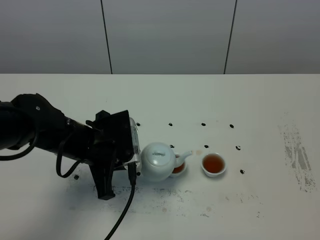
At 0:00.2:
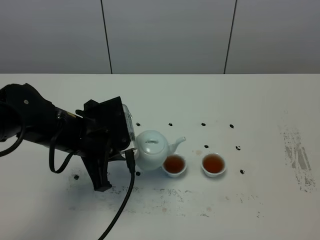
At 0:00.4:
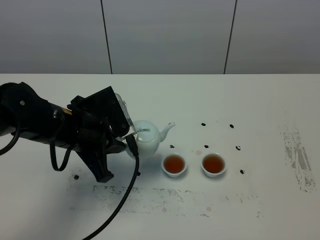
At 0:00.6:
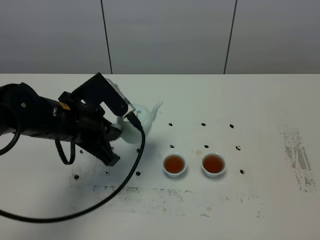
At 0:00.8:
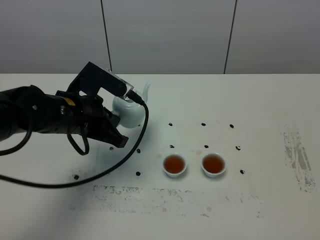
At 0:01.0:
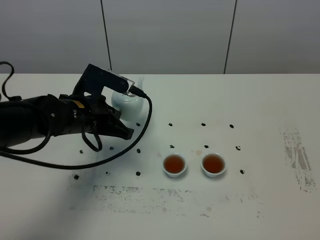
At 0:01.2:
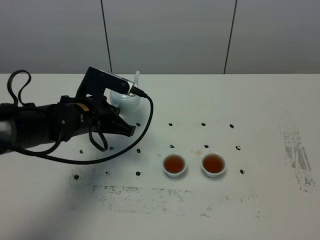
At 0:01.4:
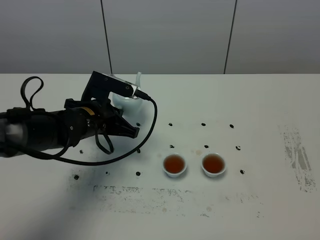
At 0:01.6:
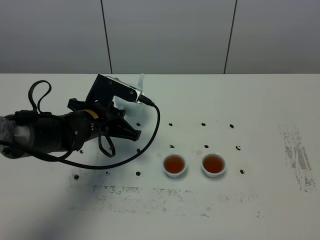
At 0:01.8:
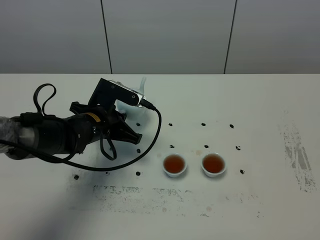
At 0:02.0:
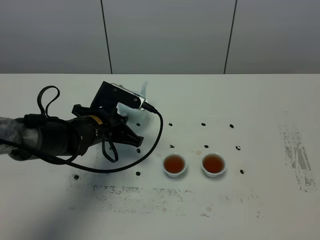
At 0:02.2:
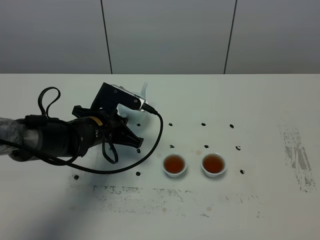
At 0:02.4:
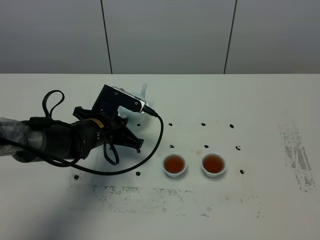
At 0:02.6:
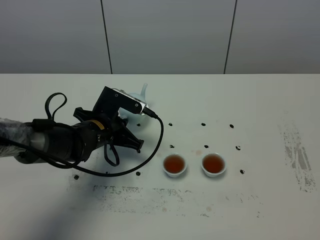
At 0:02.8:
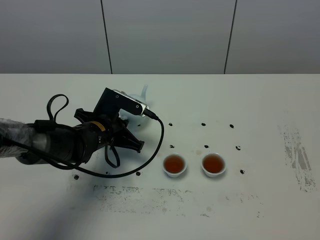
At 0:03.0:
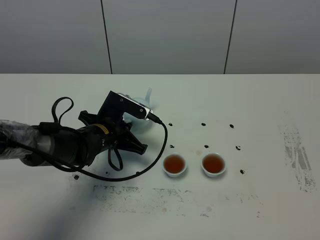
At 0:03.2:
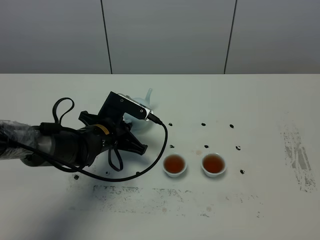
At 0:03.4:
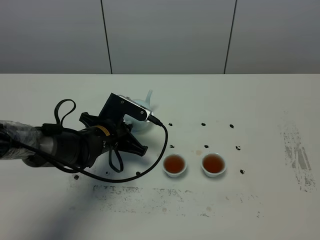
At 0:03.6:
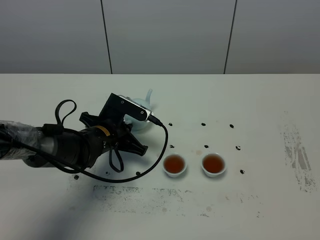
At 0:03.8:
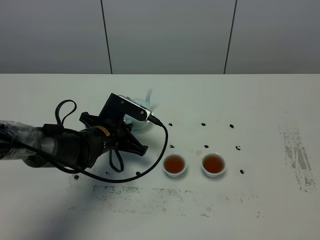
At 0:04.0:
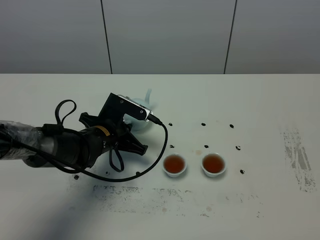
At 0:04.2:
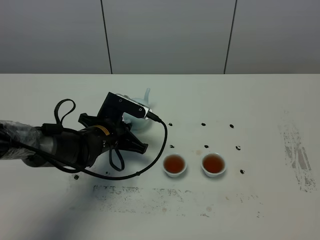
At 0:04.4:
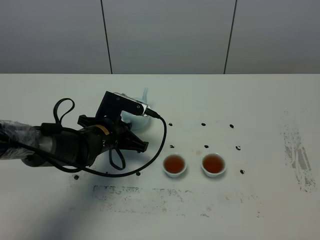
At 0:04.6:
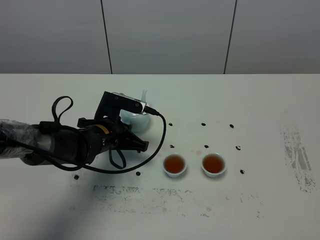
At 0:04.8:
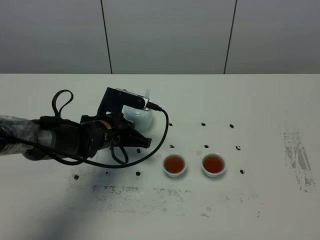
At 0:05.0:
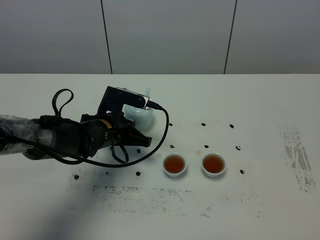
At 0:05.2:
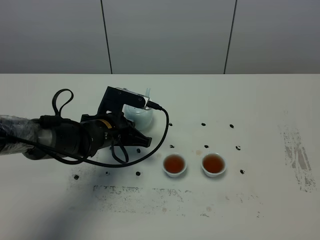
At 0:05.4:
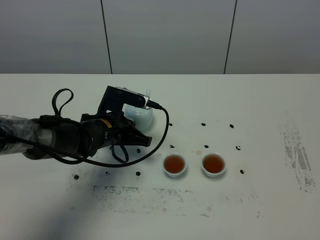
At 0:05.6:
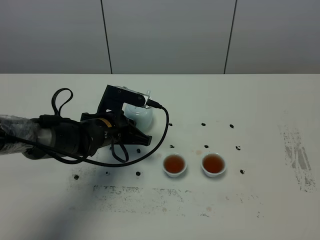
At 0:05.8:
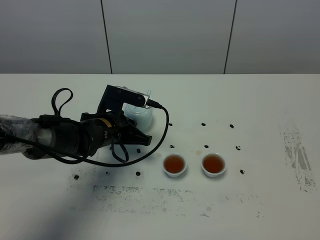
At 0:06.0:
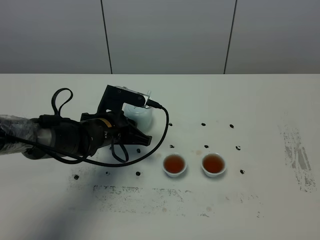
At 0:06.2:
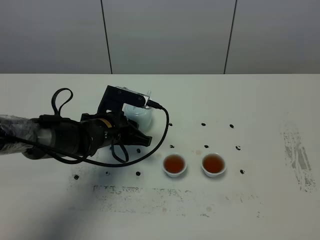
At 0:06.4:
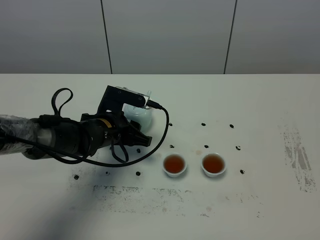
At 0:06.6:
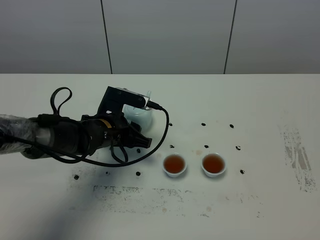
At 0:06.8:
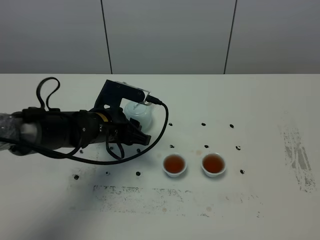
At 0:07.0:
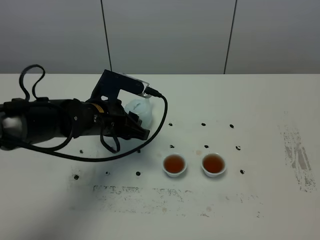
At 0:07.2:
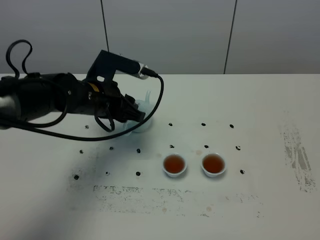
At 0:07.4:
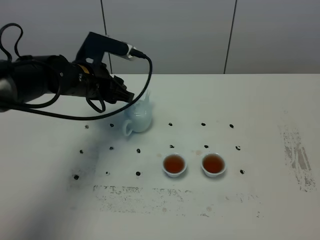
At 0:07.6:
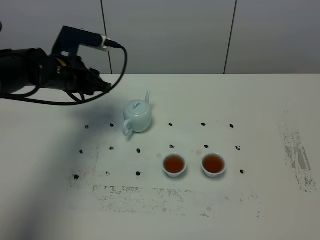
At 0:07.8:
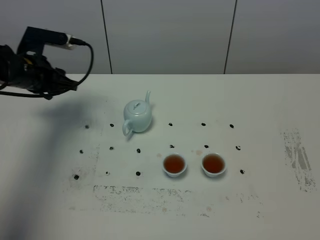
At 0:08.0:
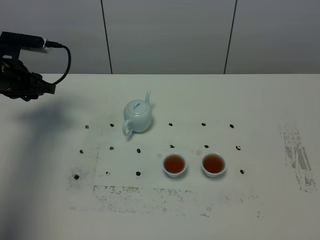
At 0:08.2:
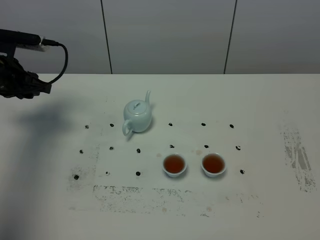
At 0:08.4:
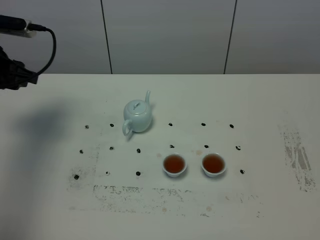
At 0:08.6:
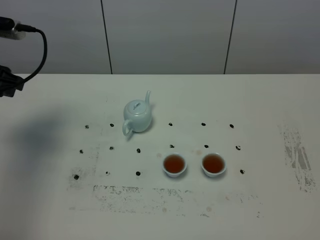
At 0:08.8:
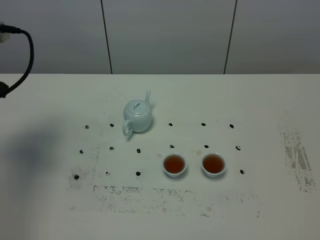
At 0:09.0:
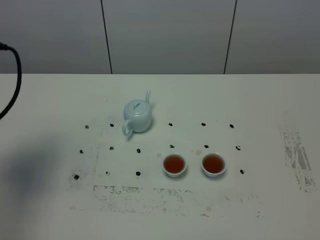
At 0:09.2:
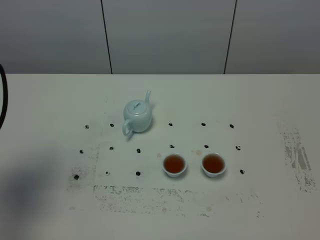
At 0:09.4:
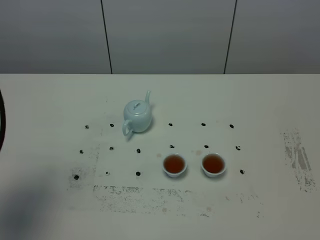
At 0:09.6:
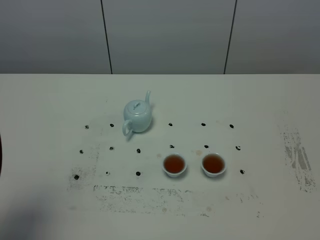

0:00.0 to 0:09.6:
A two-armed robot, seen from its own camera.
Task of the whole recording: grasp the blue porcelain teapot and pour the tea into the two blue porcelain teacups one by one, put the blue porcelain teapot back in its original place.
0:00.0 to 0:01.6: The left gripper shifts some 10 cm forward and downward.
0:01.6 to 0:04.8: The grippers make only small movements.
0:04.8 to 0:06.4: The left gripper opens its fingers.
0:06.4 to 0:08.0: The left gripper moves to the left and upward, about 20 cm.
0:08.0 to 0:09.6: The left gripper travels backward by approximately 30 cm.

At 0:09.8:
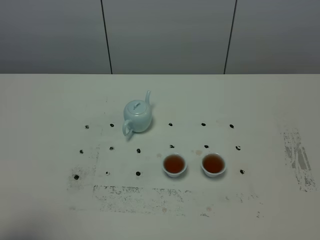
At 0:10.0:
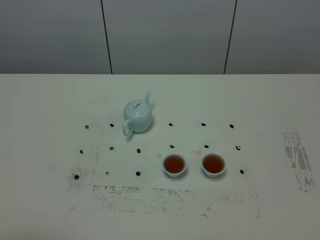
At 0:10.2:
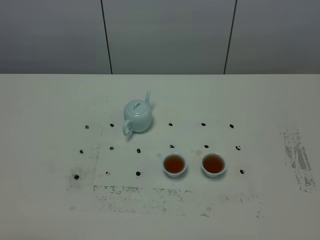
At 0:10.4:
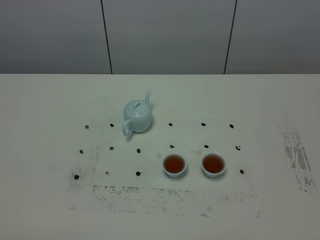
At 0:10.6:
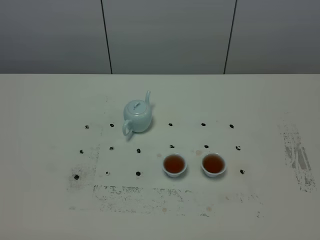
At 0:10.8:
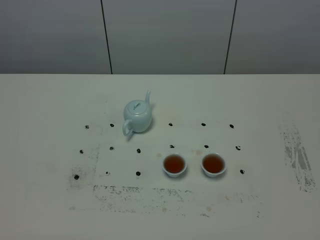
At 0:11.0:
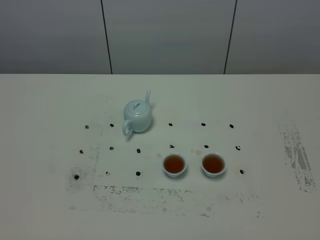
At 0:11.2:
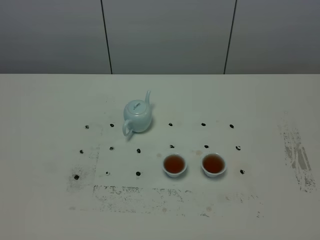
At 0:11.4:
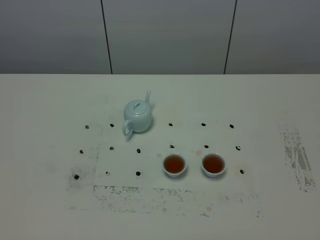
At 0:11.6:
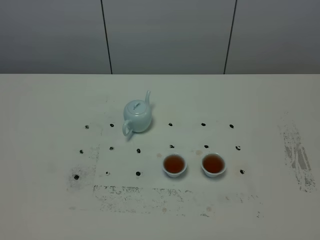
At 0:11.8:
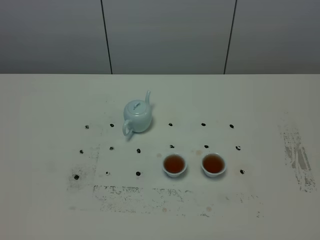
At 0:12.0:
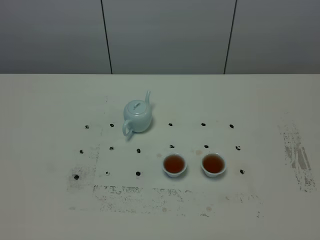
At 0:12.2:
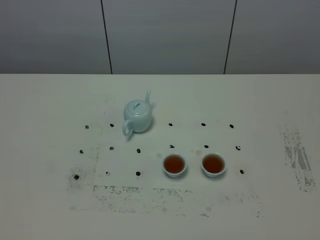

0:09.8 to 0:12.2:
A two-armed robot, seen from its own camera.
Task of the whole recording: grasp the blue porcelain teapot and pour the tea into the two blue porcelain teacups one by one, put the blue porcelain teapot back in its original place.
0:09.8 to 0:11.0: The left gripper is displaced backward by roughly 10 cm.
